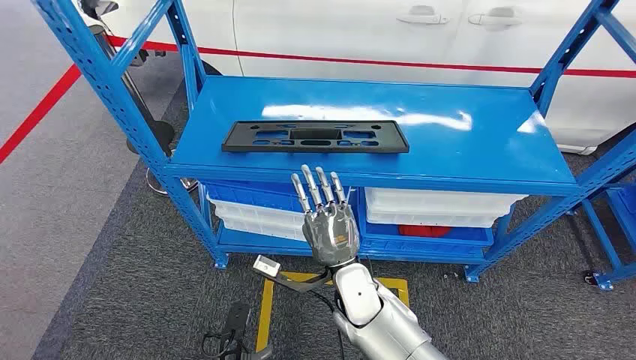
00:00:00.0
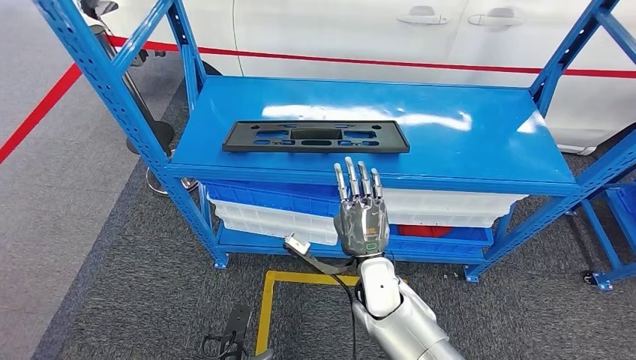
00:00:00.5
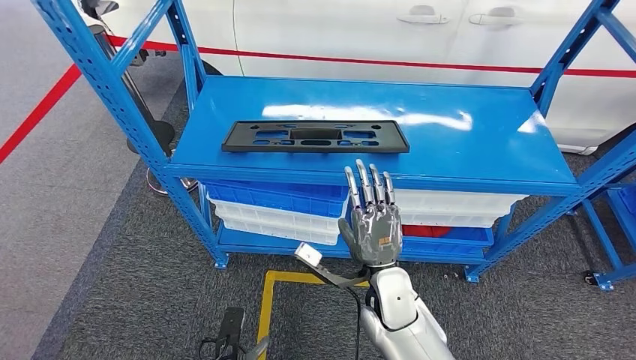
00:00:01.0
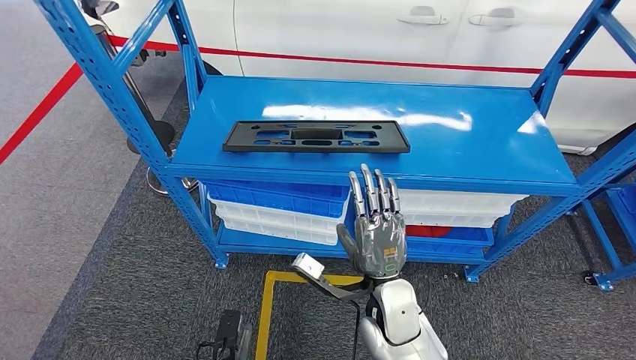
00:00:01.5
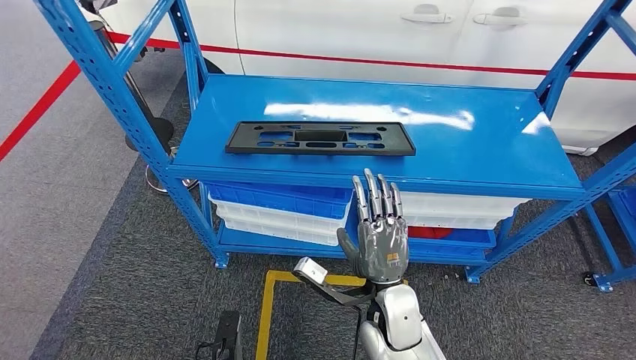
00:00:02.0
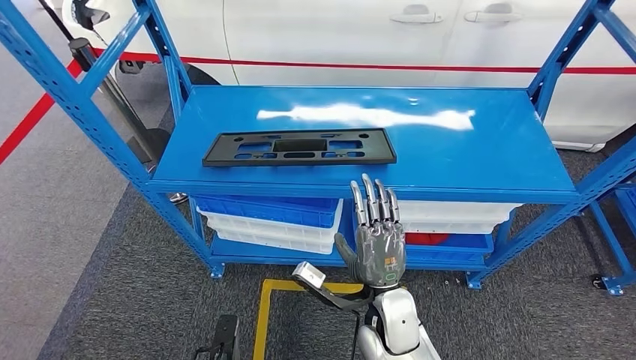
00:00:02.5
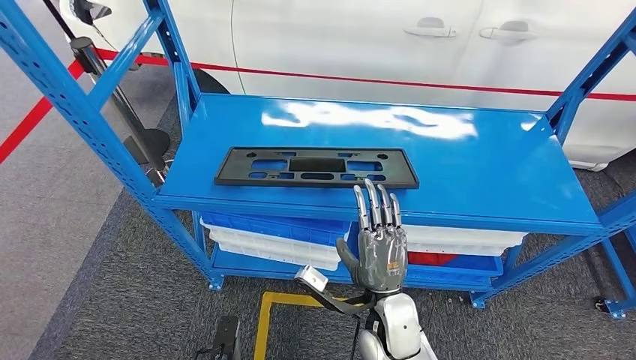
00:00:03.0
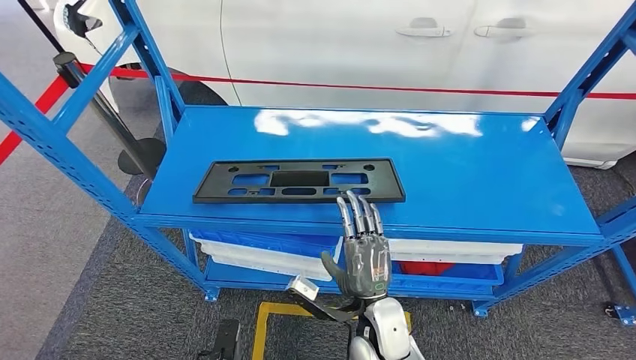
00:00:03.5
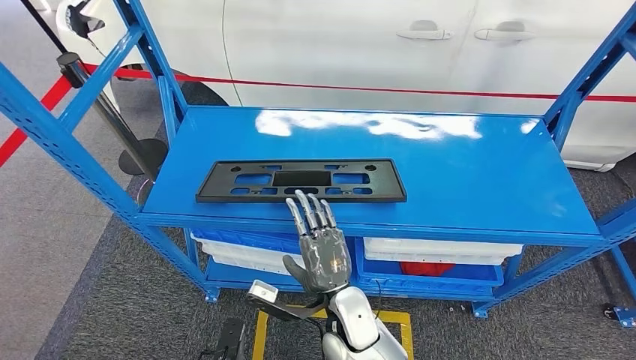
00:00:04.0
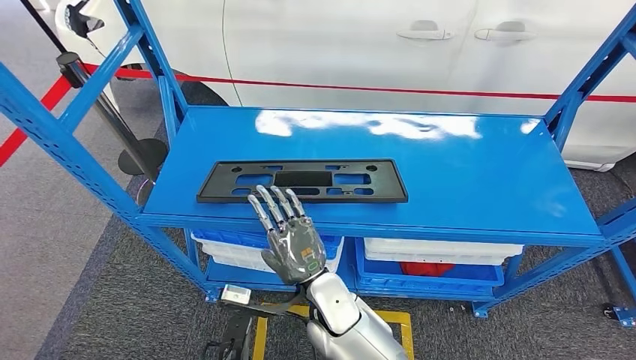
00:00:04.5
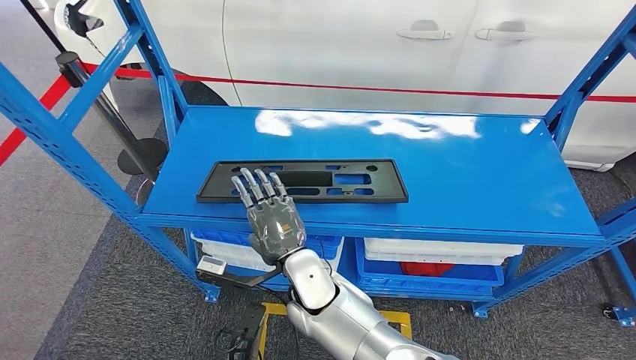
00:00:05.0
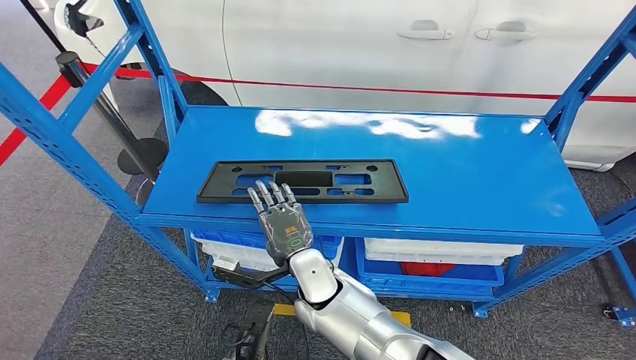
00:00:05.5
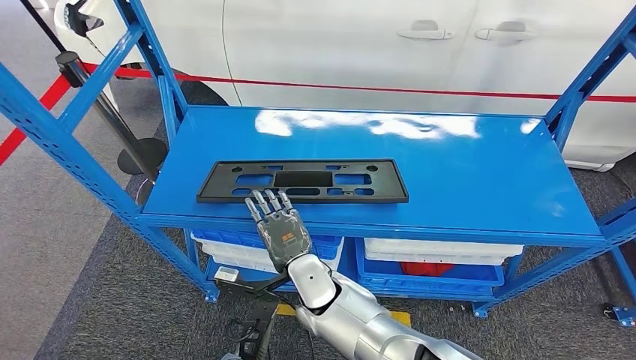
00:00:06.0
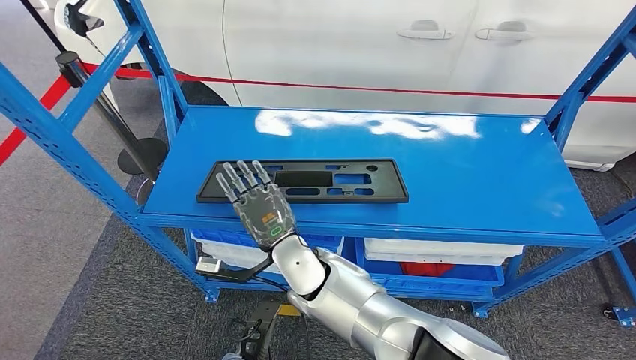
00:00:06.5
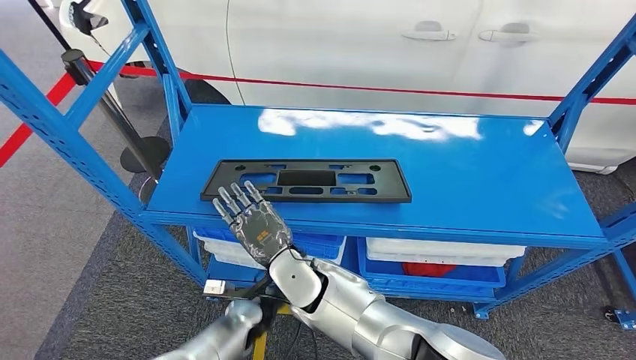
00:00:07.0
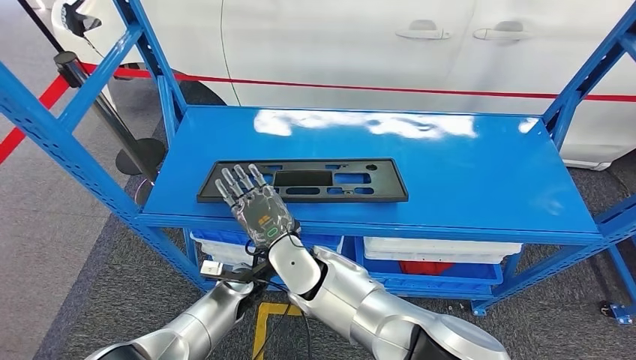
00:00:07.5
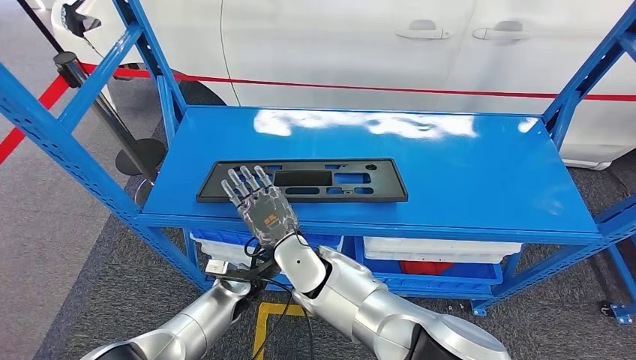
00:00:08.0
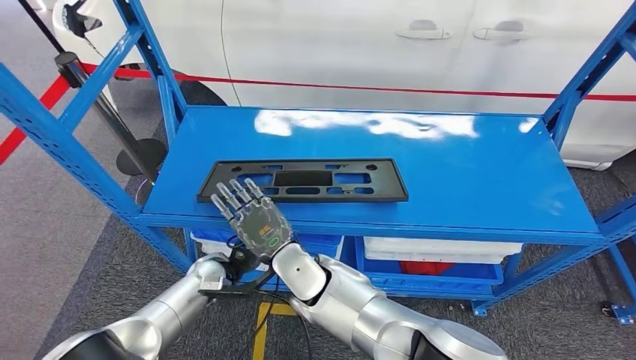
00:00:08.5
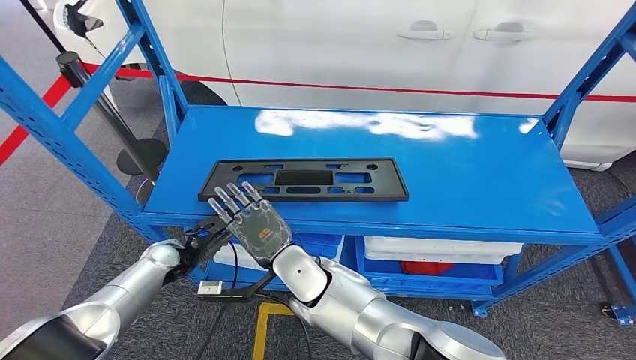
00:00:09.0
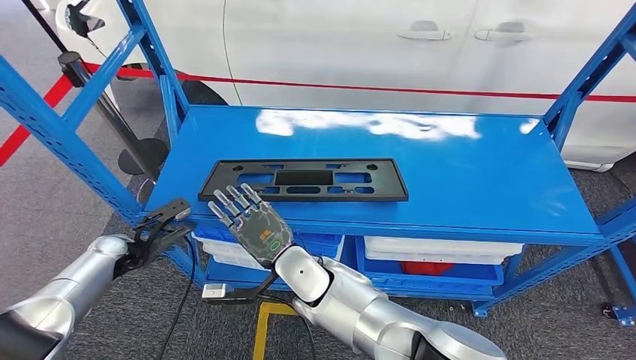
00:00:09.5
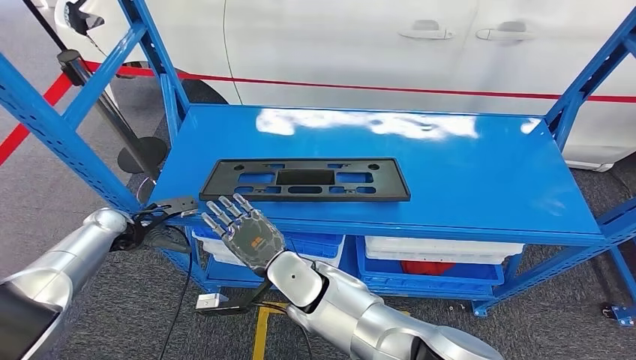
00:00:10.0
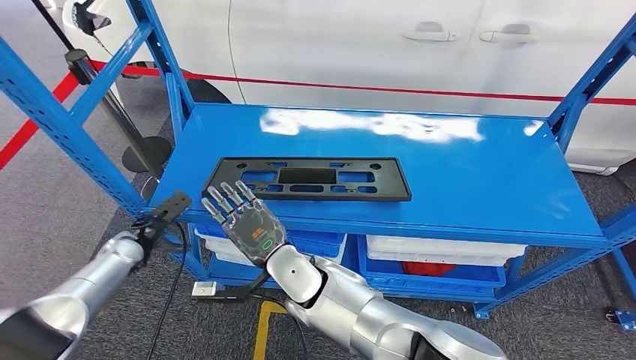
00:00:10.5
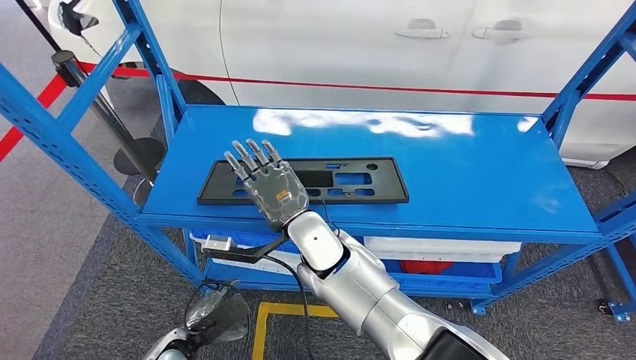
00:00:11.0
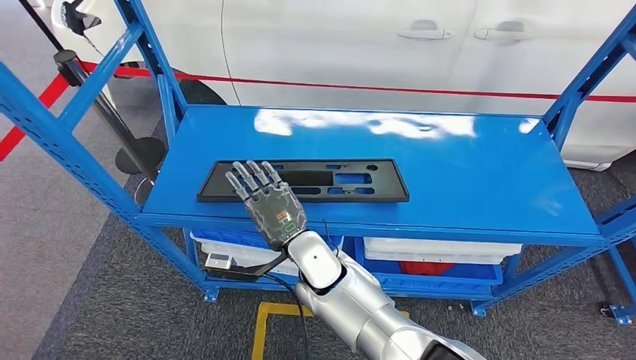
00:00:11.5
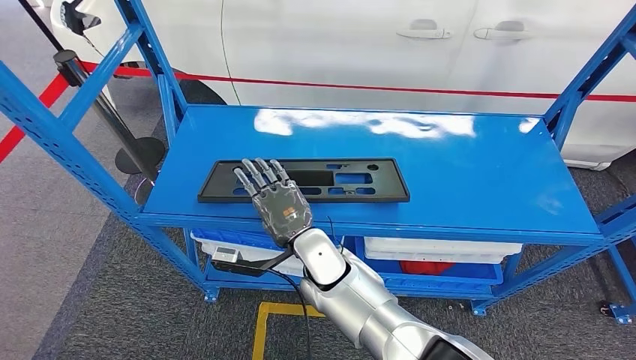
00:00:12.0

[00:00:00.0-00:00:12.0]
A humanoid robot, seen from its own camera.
00:00:04.0 to 00:00:06.0: The left hand is displaced forward by approximately 5 cm; the right hand shifts some 5 cm to the left.
00:00:06.0 to 00:00:08.0: The left hand goes roughly 20 cm forward and upward.
00:00:10.0 to 00:00:12.0: The left hand is displaced backward and downward by some 40 cm.

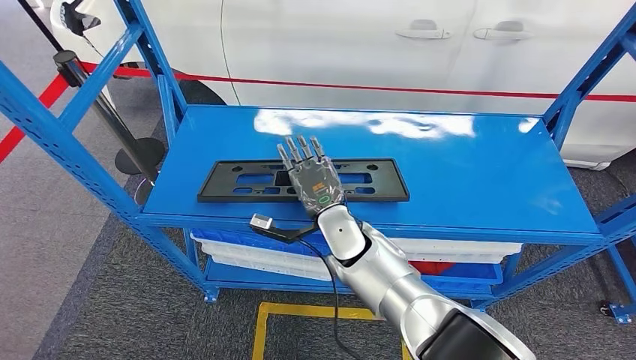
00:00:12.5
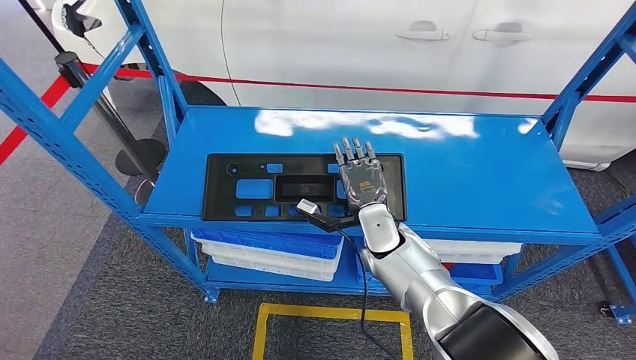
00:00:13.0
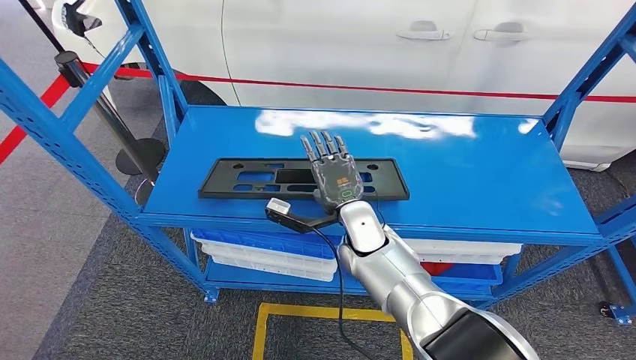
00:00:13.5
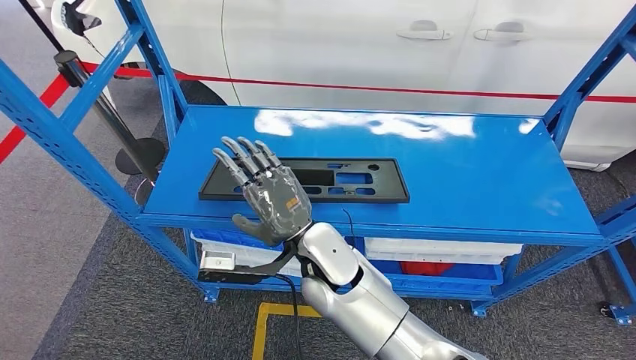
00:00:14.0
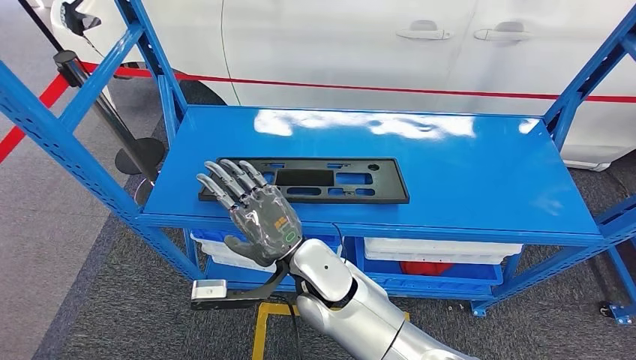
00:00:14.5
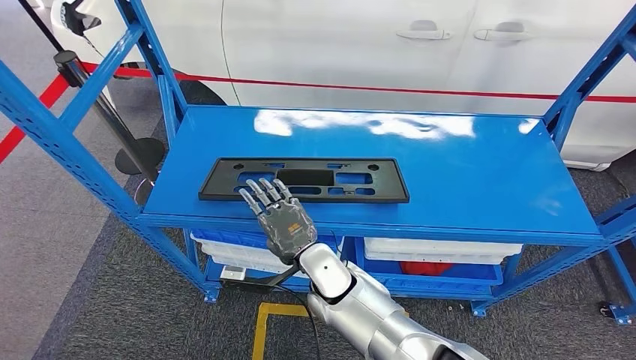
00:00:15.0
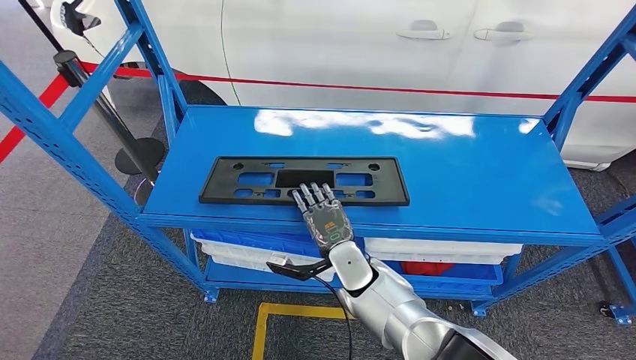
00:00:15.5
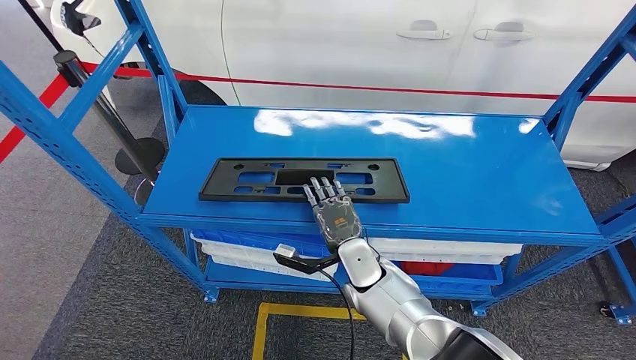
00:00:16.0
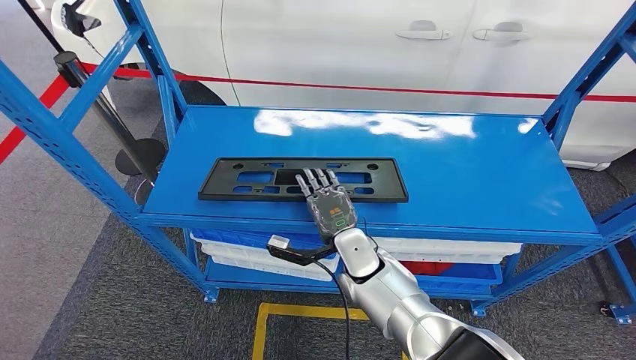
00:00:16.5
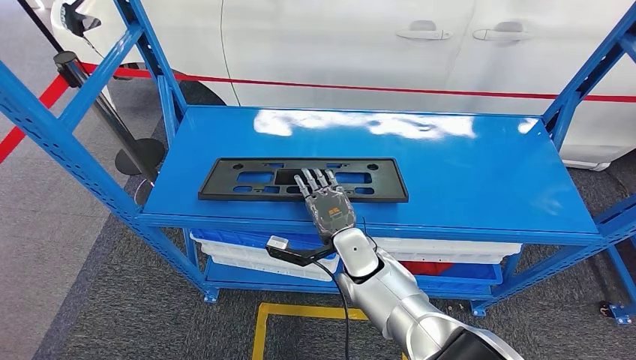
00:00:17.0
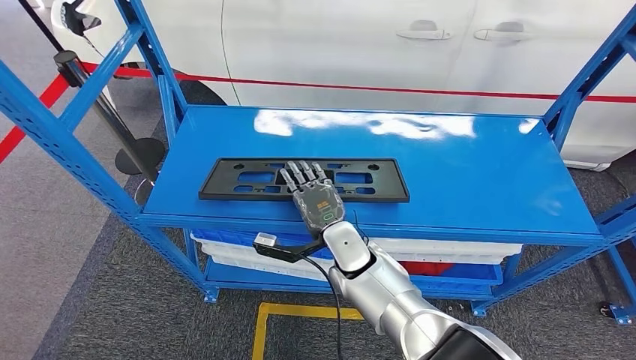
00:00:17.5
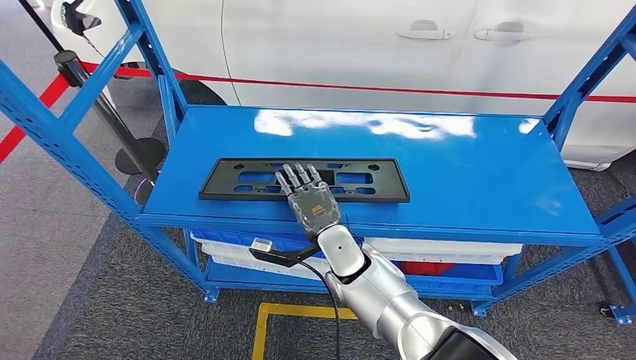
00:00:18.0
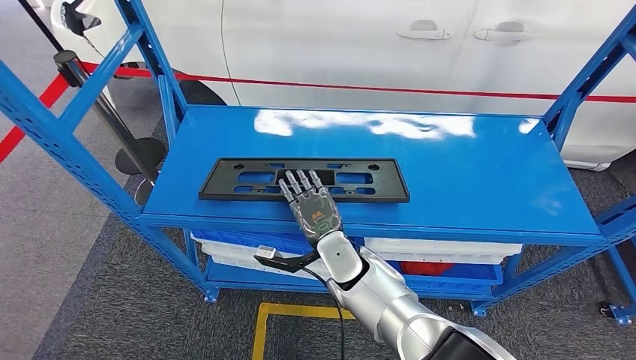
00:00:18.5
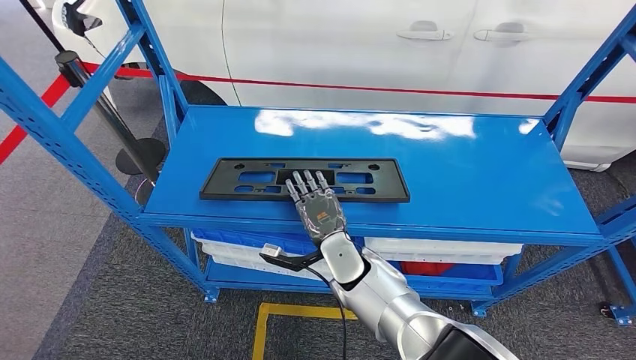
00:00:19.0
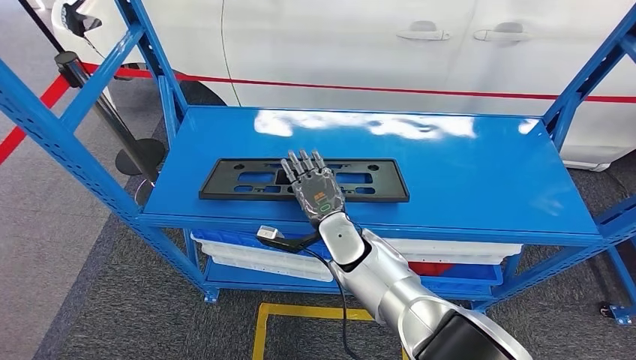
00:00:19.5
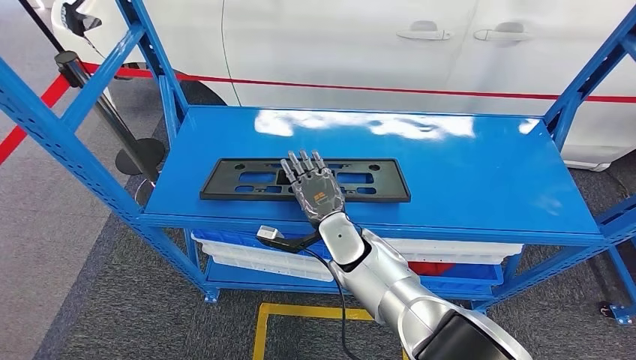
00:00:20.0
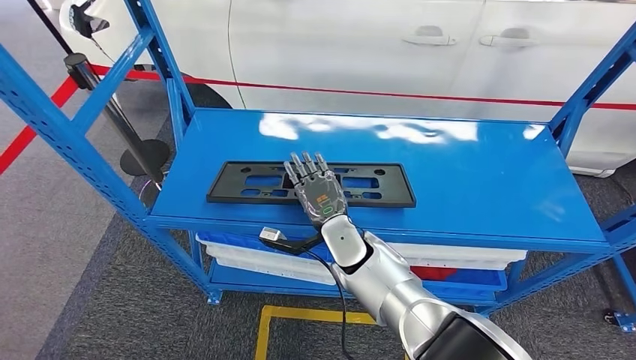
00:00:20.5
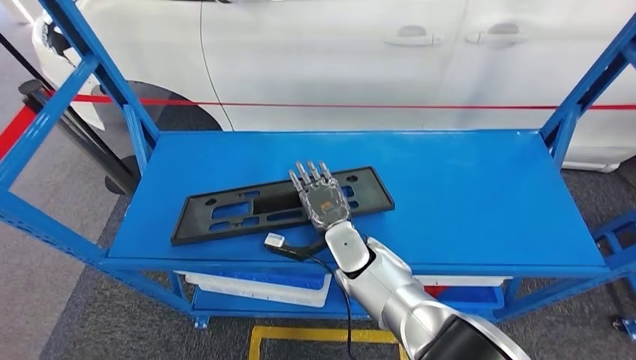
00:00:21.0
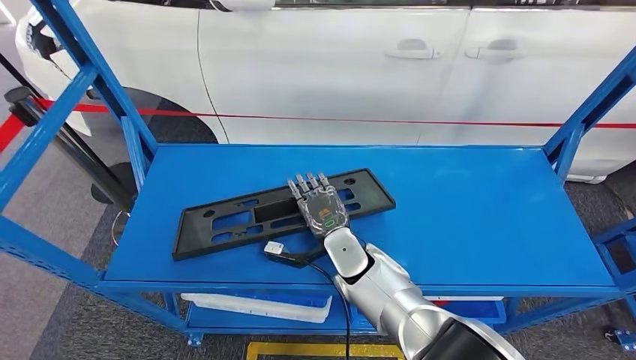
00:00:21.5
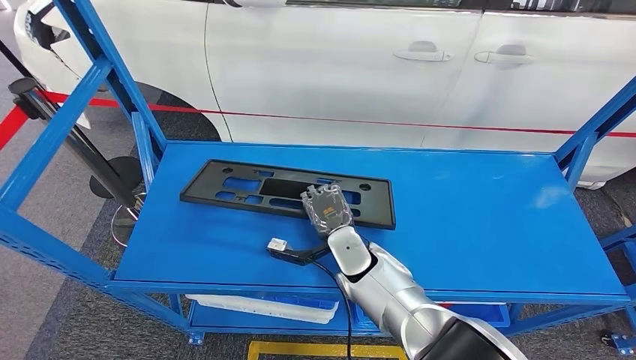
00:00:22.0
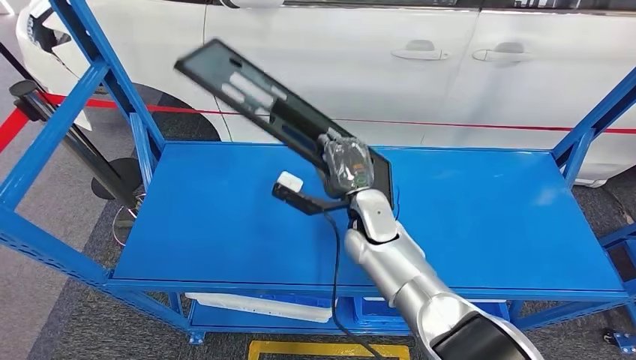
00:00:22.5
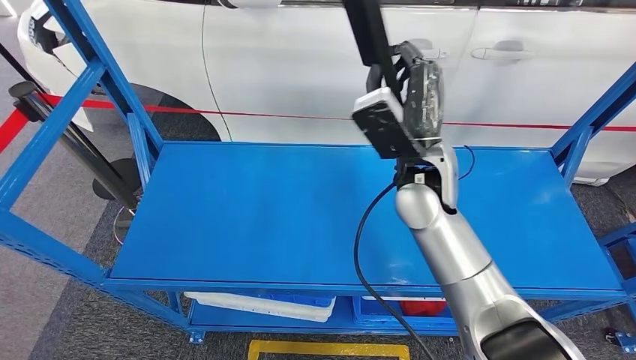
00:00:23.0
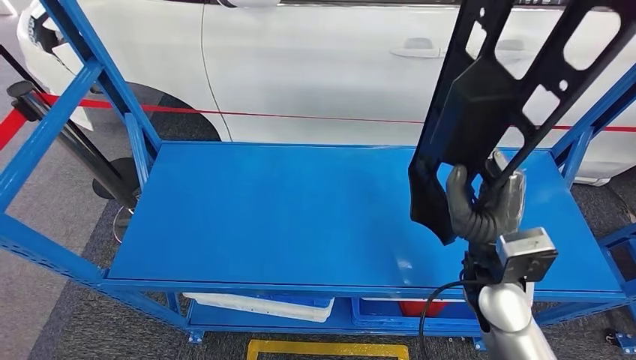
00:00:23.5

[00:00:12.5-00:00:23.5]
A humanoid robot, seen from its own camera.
Step, 00:00:12.5 to 00:00:23.0: Pick up the large material from the shelf.
00:00:12.5 to 00:00:14.5: The right hand shifts roughly 10 cm backward.
00:00:14.5 to 00:00:16.0: The right hand moves downward, to the right and forward, roughly 15 cm.
00:00:16.0 to 00:00:18.0: The right hand ends up approximately 5 cm from where it was.
00:00:18.0 to 00:00:20.0: There are only small adjustments of the hands.
